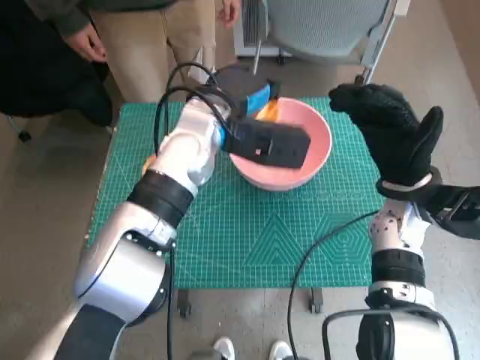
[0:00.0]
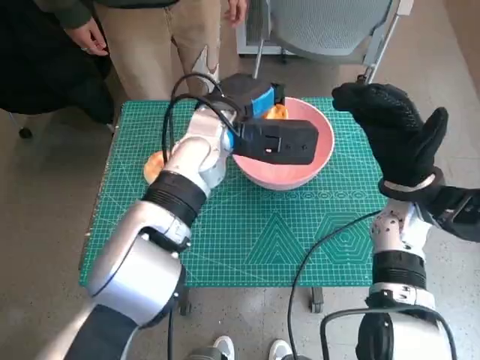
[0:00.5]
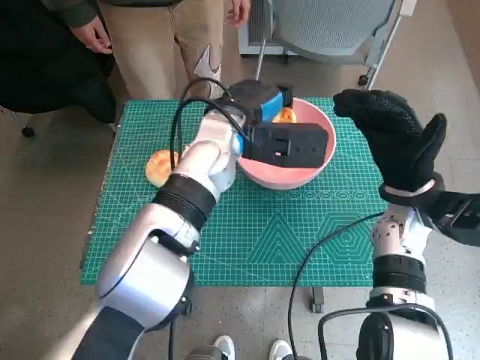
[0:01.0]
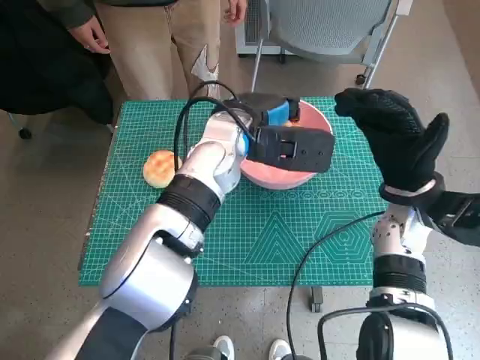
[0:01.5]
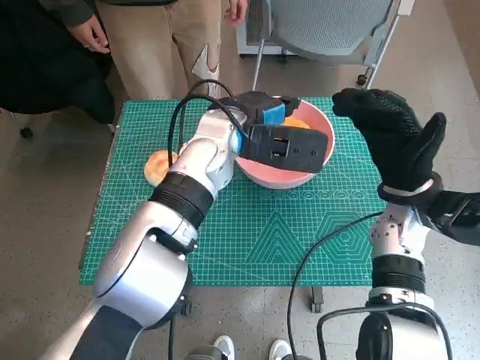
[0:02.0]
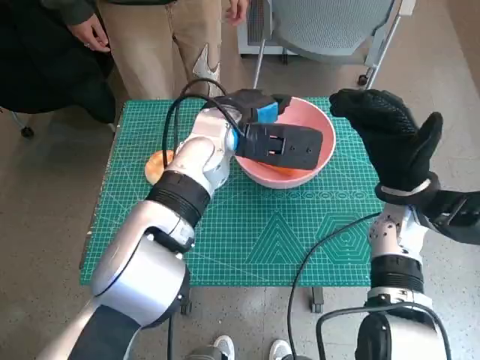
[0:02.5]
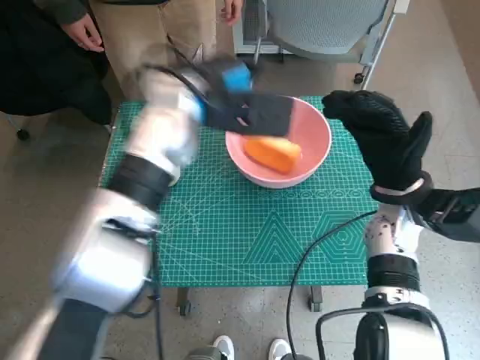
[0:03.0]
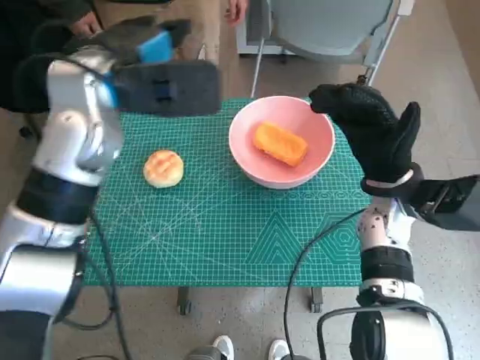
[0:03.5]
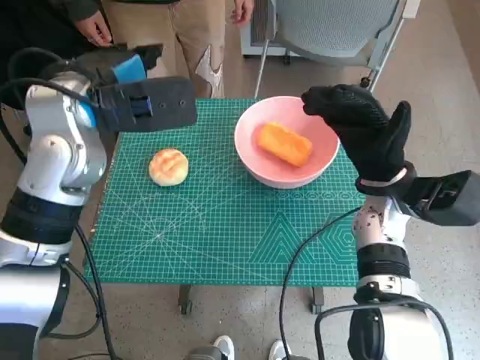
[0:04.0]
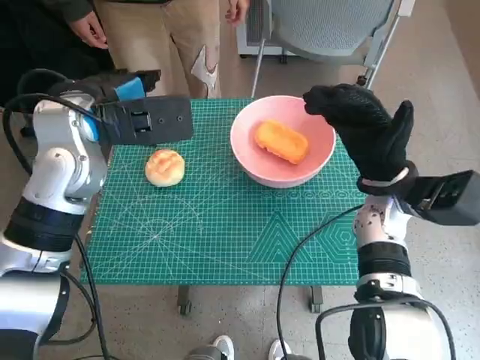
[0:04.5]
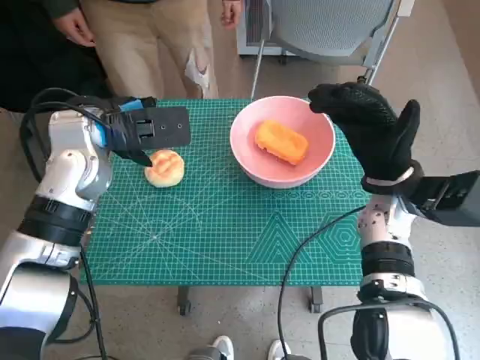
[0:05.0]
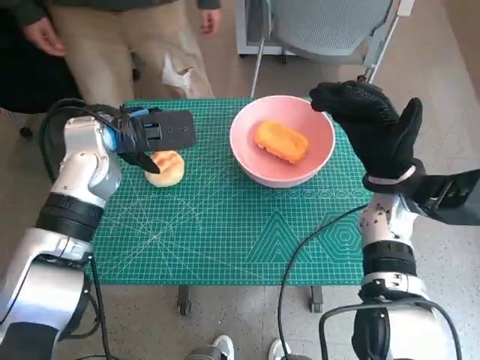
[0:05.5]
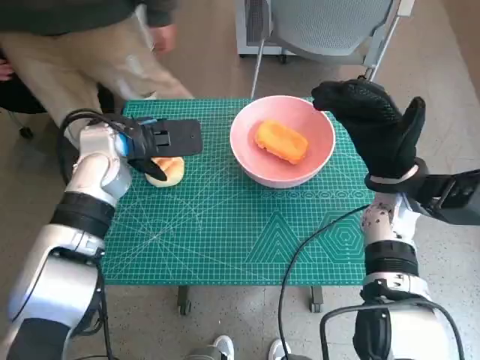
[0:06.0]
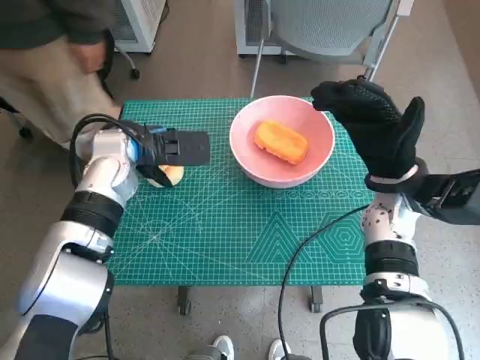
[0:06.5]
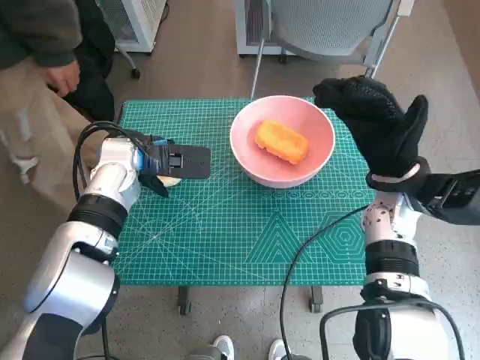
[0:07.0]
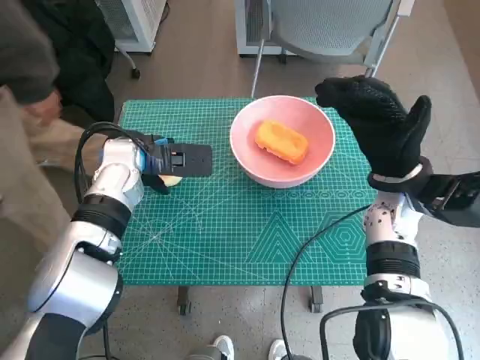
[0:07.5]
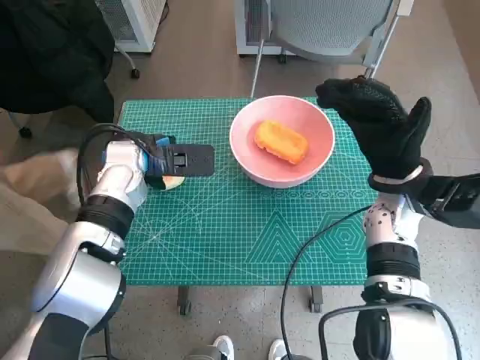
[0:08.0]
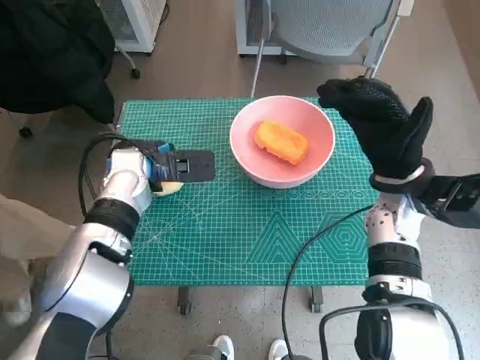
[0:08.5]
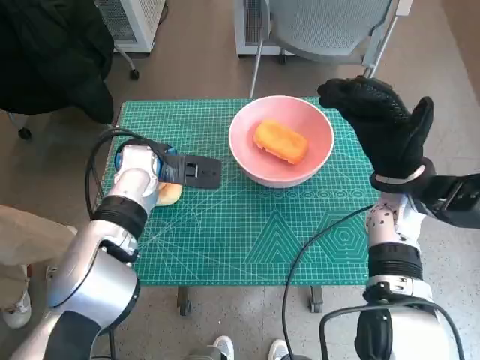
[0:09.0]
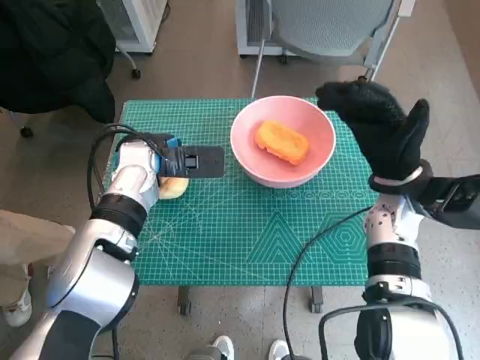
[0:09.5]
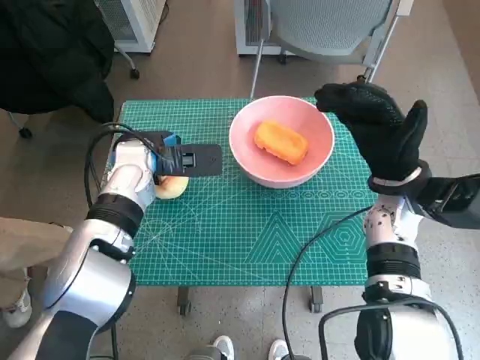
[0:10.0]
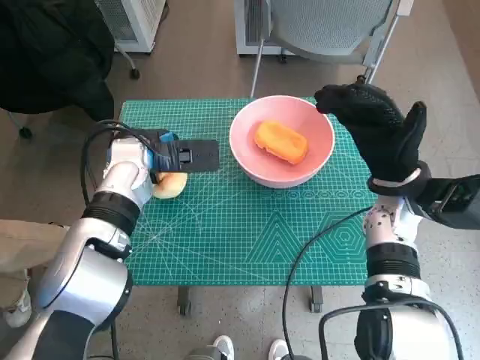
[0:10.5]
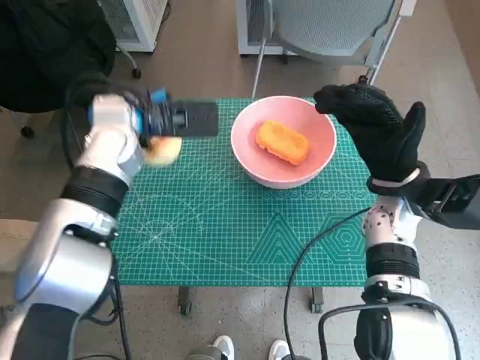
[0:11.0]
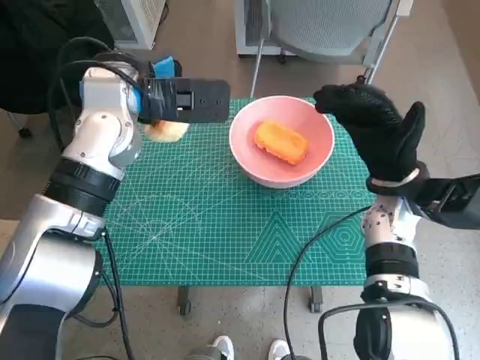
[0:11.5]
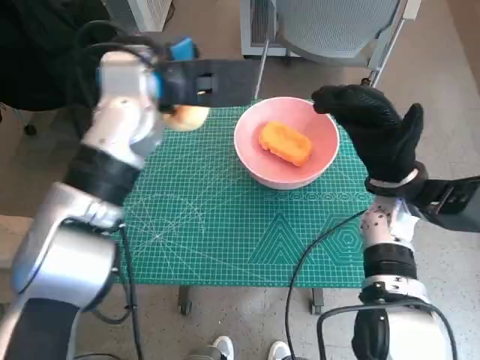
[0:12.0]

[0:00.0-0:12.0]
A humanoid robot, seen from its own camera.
Step, 0:00.0 to 0:02.0: Place the long bread in pink bowl with left hand.
Step, 0:02.5 to 0:09.5: Grasp the round bread with left hand.
0:02.0 to 0:04.0: The left hand moves to the left and upward, about 15 cm.
0:04.0 to 0:06.0: The left hand travels downward by roughly 10 cm.
0:08.0 to 0:10.0: There are only small adjustments of the hands.
0:10.0 to 0:12.0: The left hand travels upward by about 15 cm.

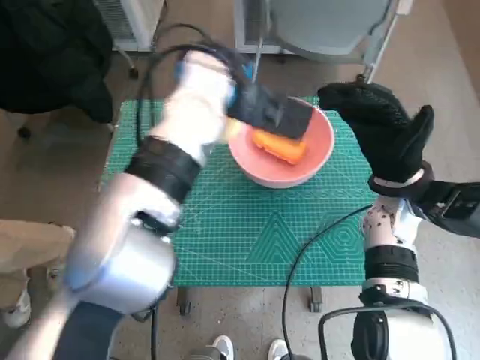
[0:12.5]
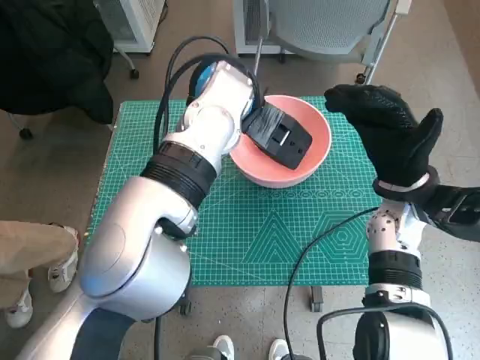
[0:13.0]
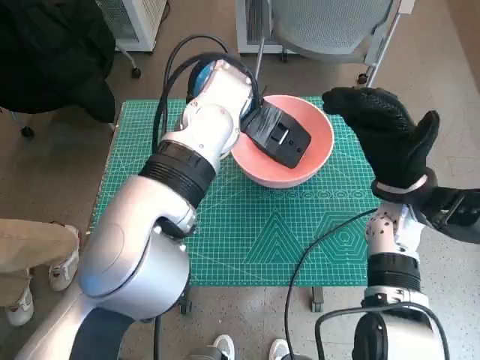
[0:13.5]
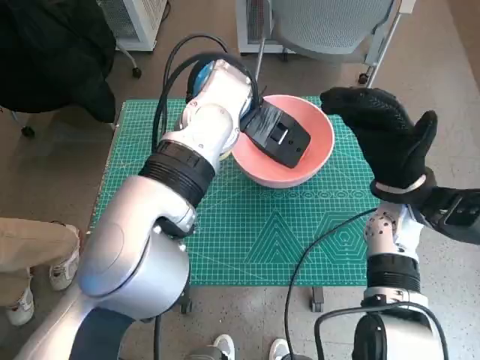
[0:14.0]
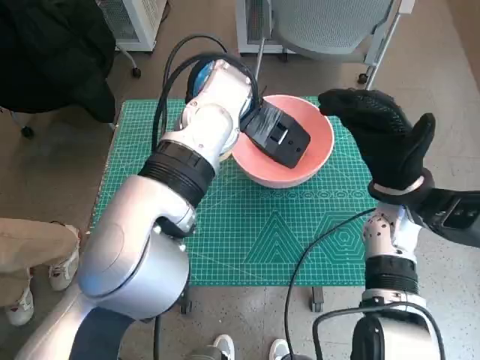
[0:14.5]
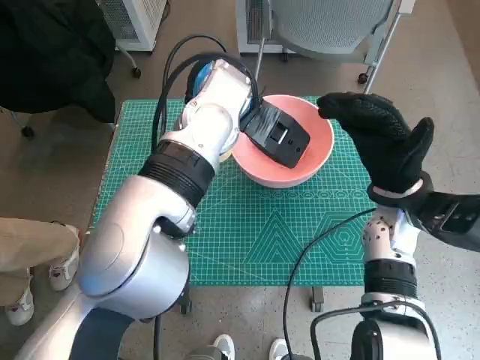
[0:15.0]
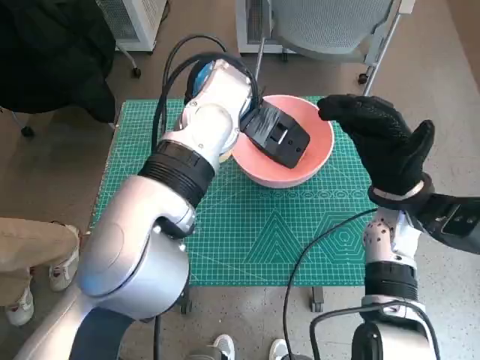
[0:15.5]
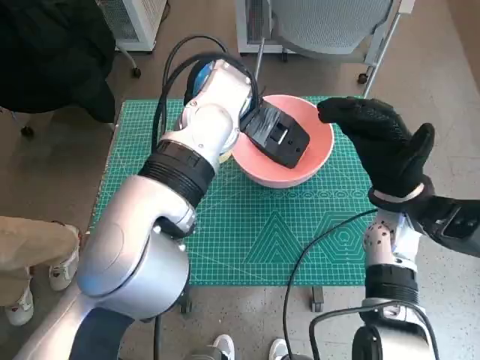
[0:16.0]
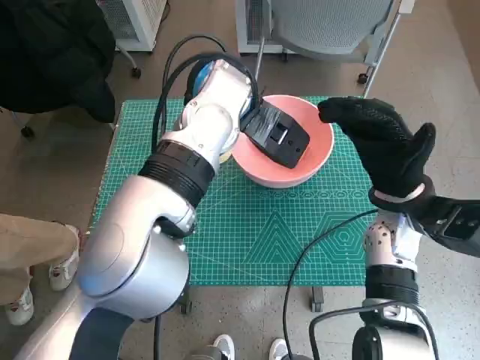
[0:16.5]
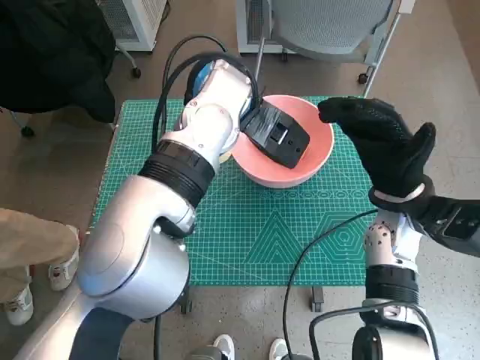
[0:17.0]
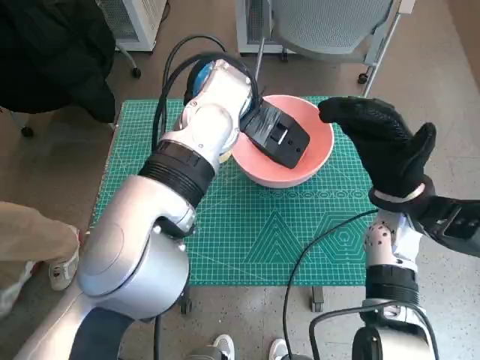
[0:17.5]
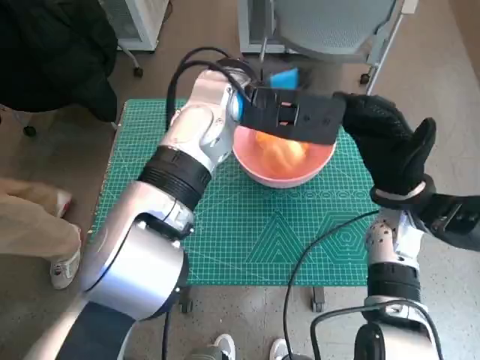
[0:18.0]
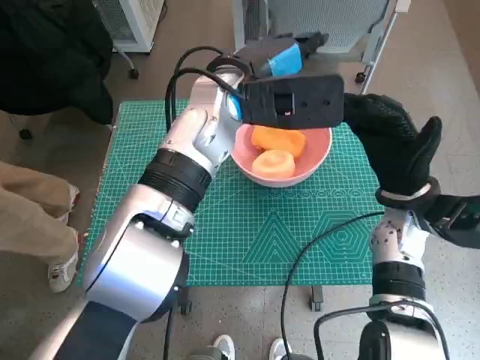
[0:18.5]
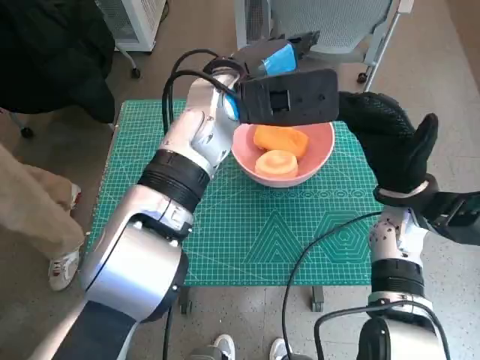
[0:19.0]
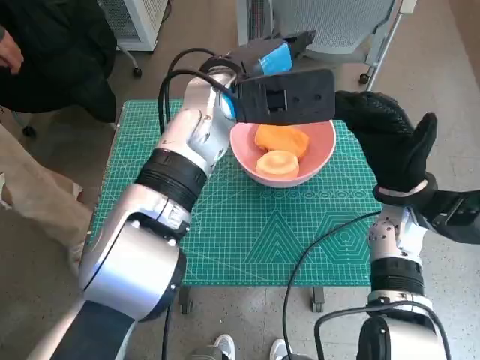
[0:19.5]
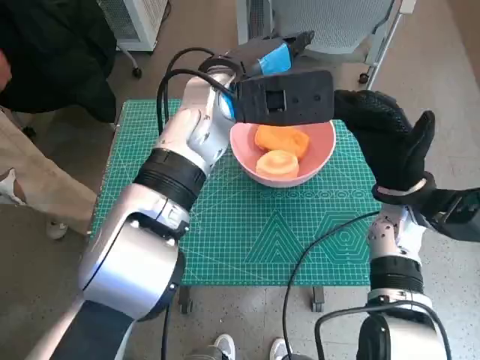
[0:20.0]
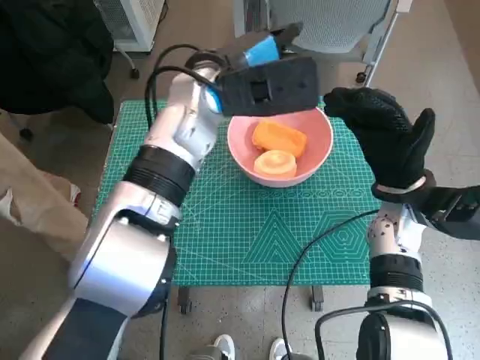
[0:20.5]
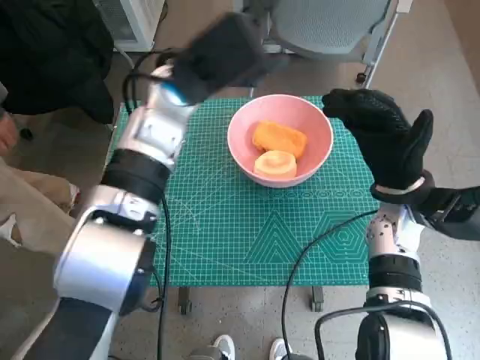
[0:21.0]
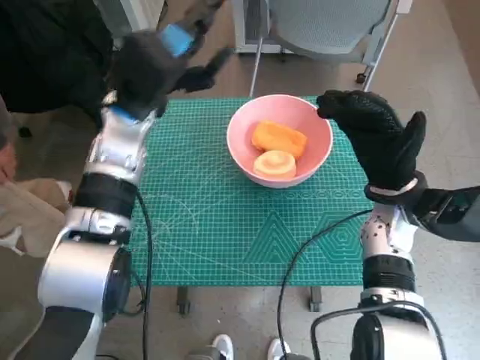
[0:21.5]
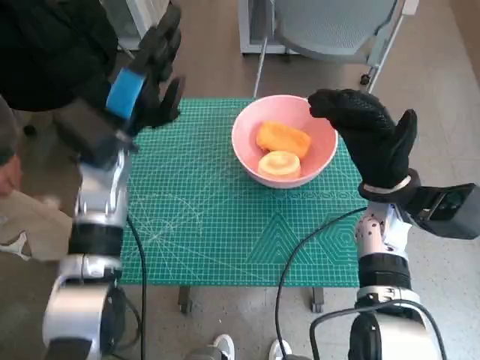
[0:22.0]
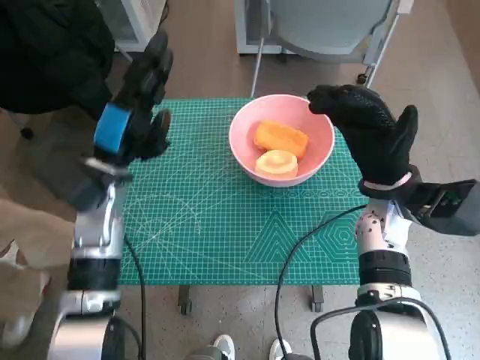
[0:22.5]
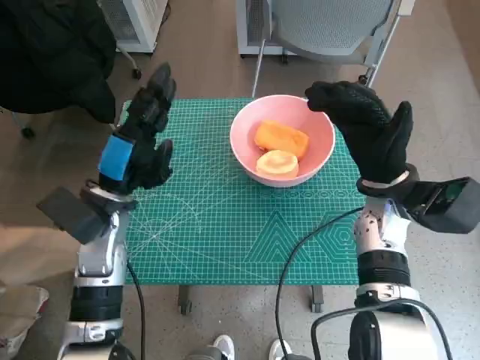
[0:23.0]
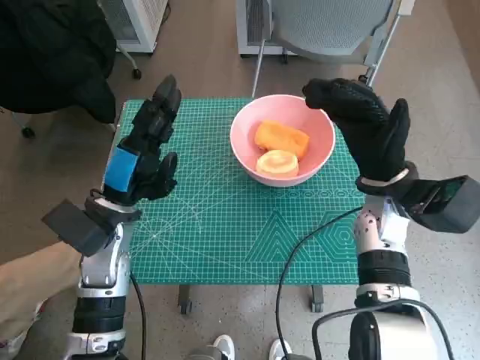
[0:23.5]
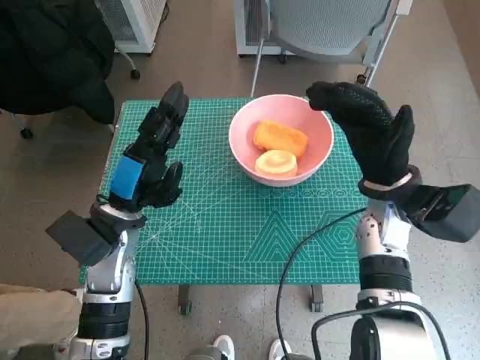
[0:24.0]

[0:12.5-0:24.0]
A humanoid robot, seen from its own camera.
Step, 0:12.5 to 0:18.0: Place the round bread in pink bowl with left hand.
0:14.5 to 0:16.5: Neither hand changes place.
0:20.0 to 0:22.0: The left hand heads to the left and downward, covering some 15 cm.
0:22.0 to 0:24.0: The left hand goes some 10 cm backward and downward.

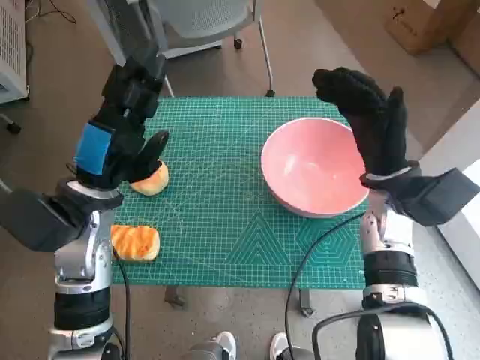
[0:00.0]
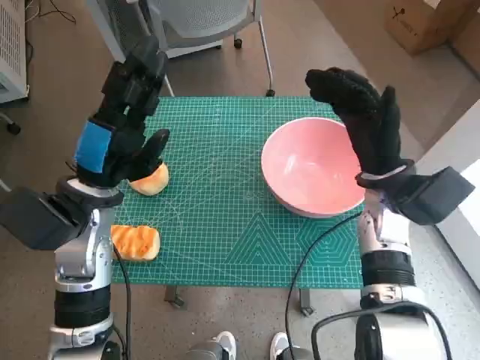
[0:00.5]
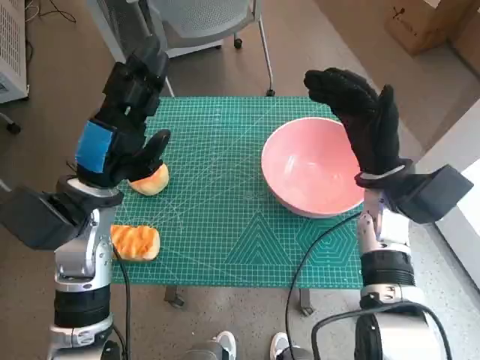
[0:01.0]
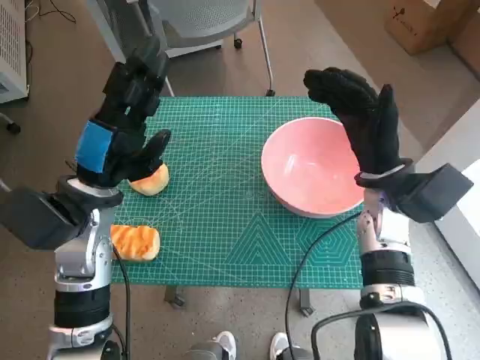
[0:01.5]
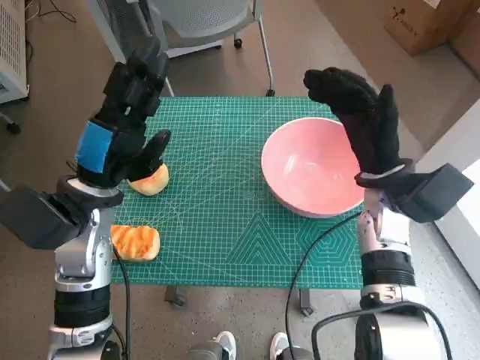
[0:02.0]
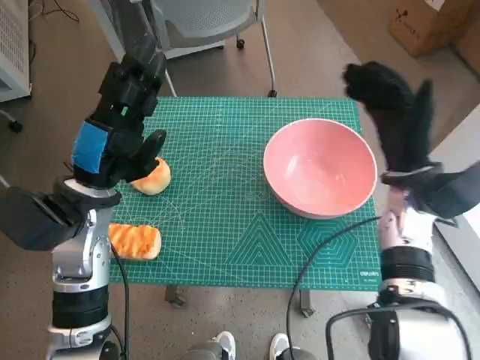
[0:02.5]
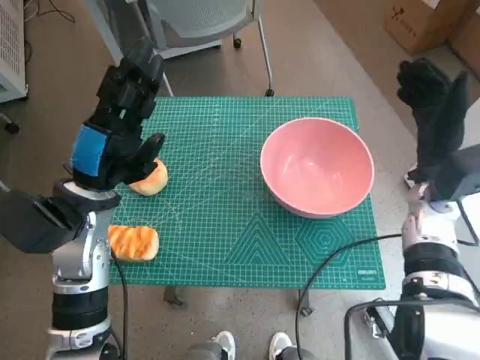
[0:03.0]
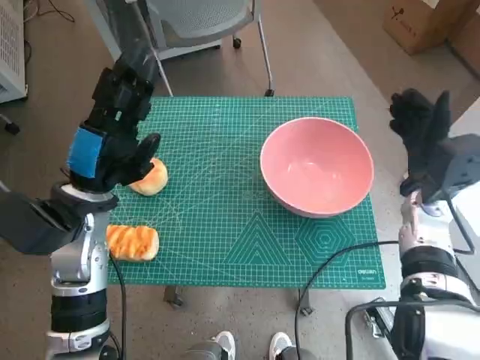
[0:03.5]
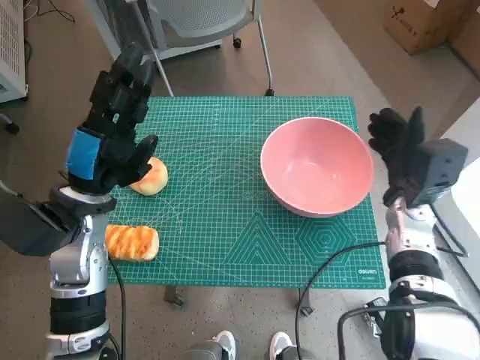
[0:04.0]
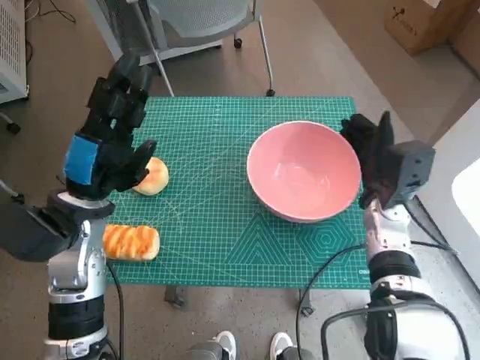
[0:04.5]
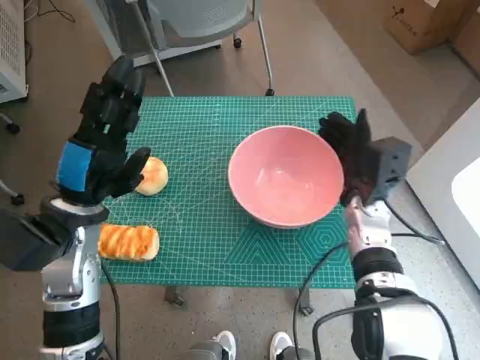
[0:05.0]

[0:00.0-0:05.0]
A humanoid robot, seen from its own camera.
0:02.5 to 0:05.0: The right hand moves downward, roughly 5 cm.
